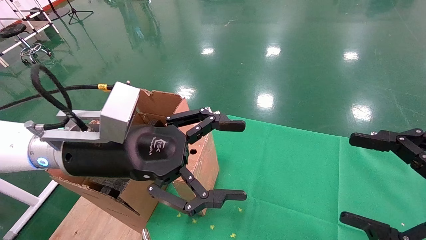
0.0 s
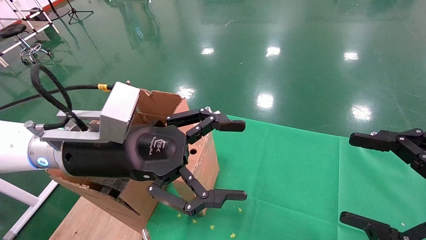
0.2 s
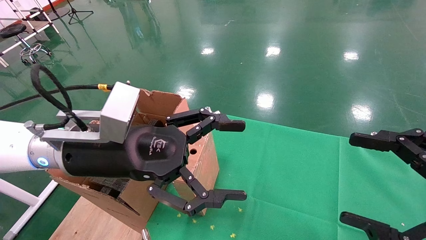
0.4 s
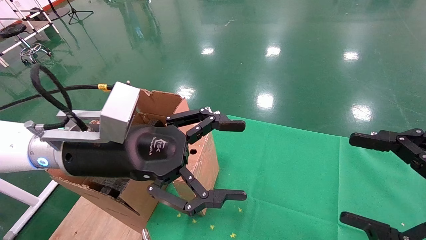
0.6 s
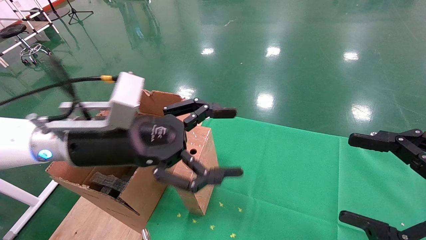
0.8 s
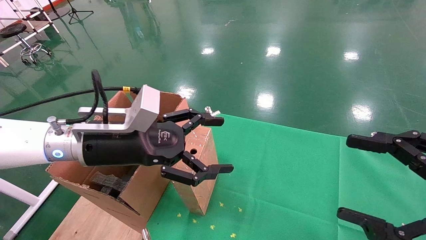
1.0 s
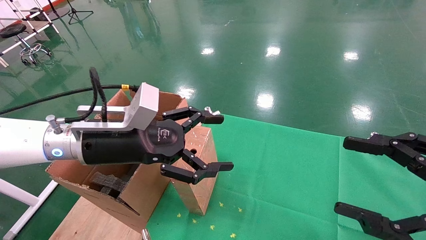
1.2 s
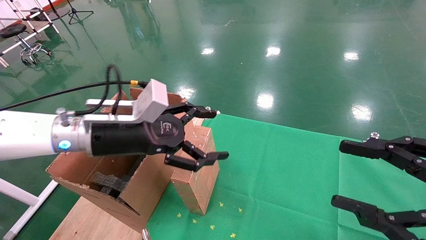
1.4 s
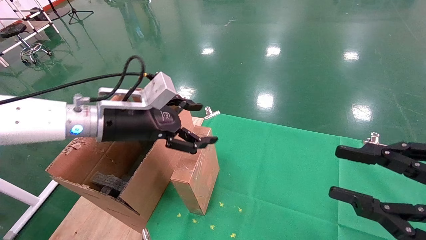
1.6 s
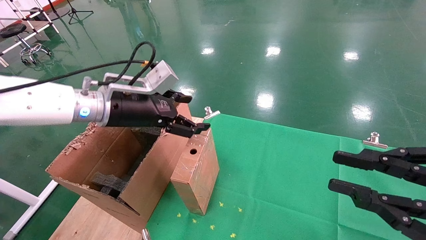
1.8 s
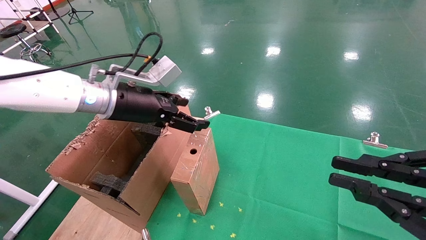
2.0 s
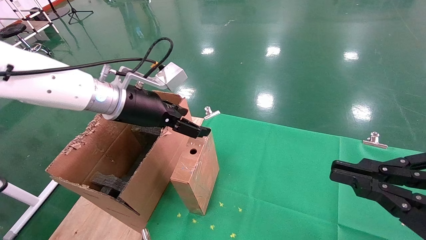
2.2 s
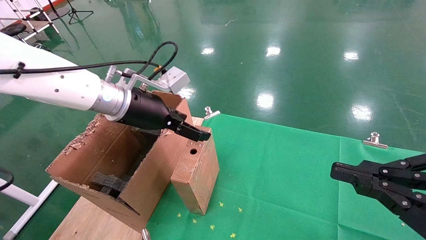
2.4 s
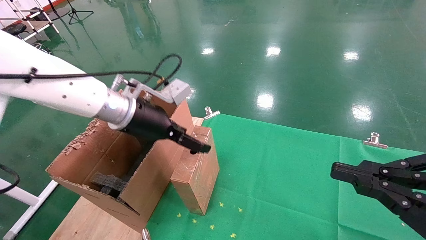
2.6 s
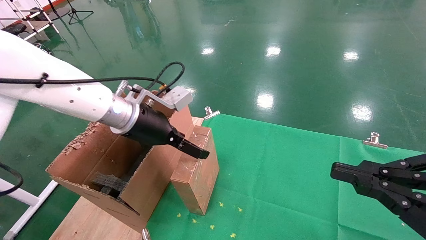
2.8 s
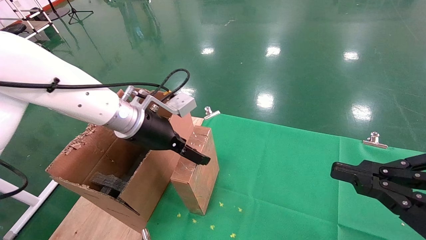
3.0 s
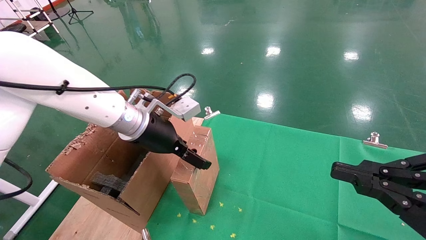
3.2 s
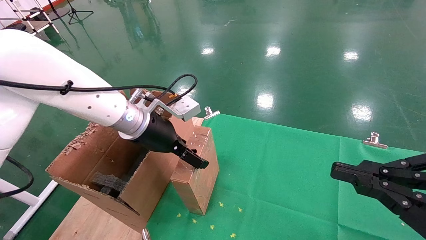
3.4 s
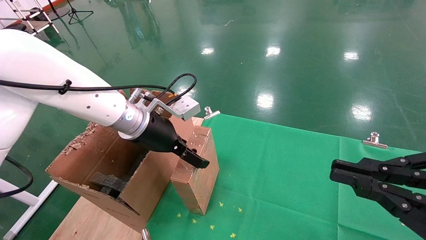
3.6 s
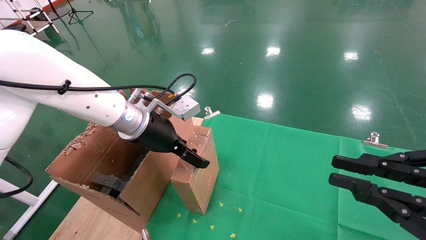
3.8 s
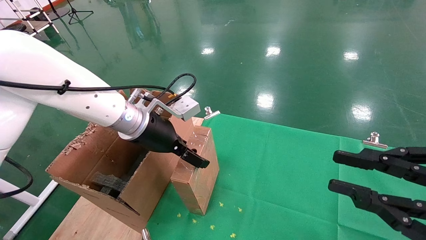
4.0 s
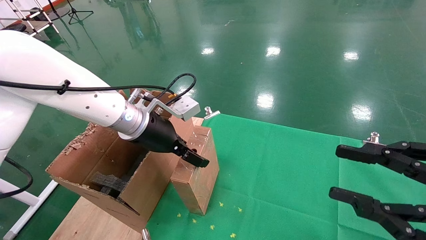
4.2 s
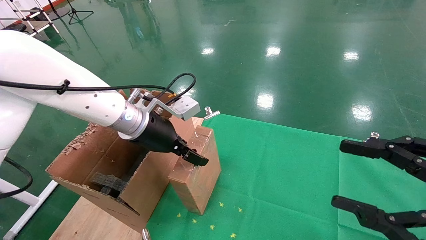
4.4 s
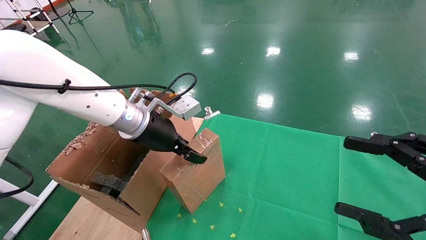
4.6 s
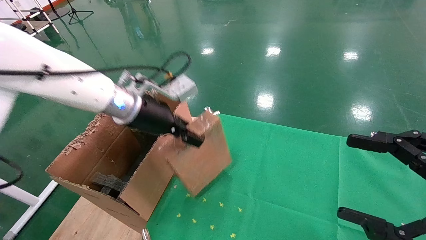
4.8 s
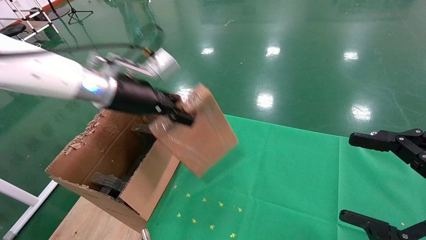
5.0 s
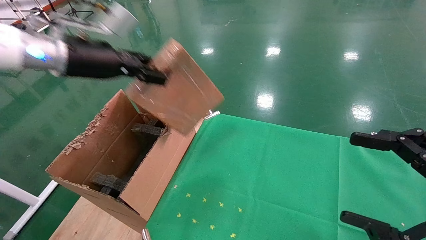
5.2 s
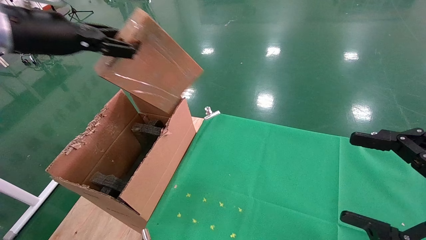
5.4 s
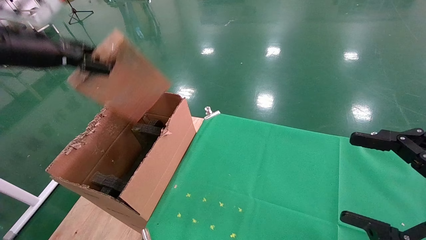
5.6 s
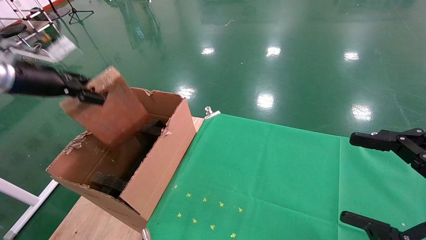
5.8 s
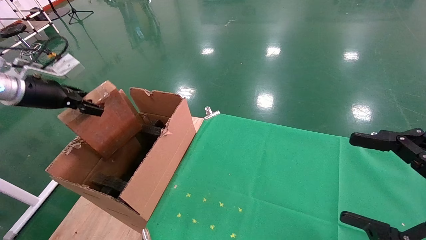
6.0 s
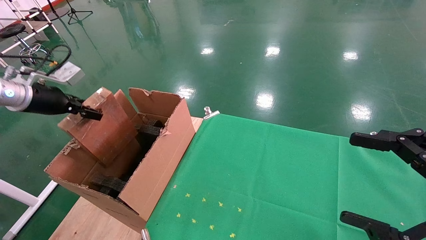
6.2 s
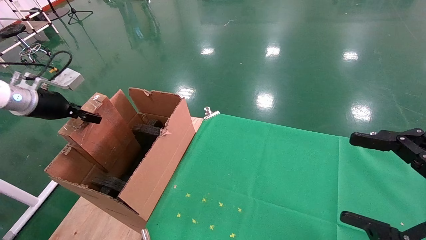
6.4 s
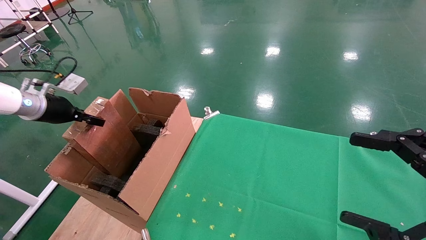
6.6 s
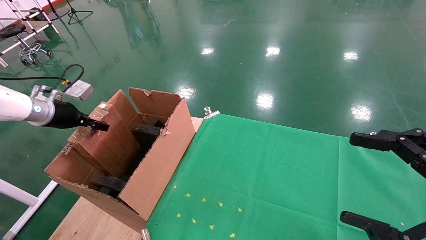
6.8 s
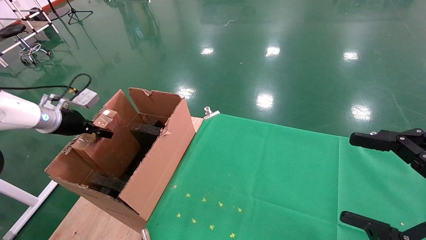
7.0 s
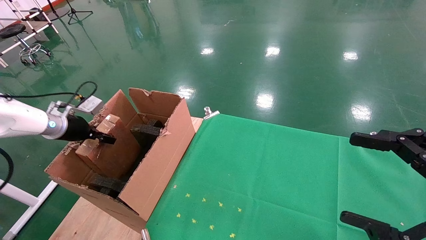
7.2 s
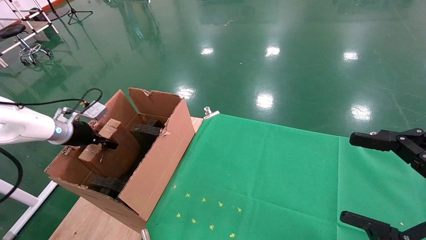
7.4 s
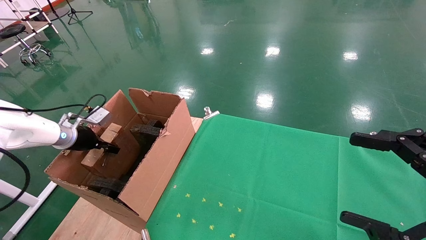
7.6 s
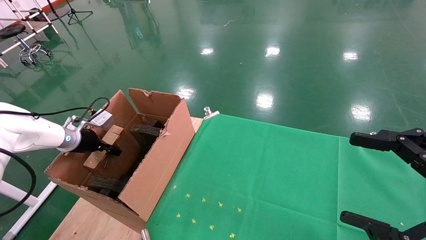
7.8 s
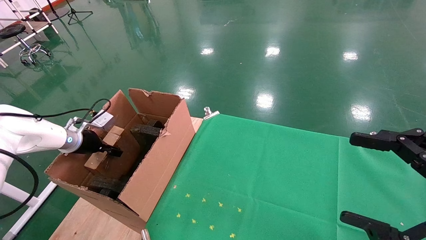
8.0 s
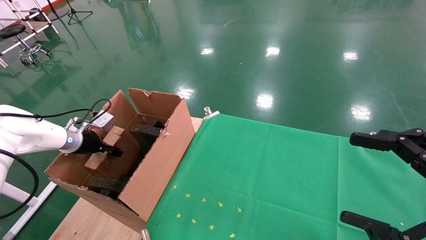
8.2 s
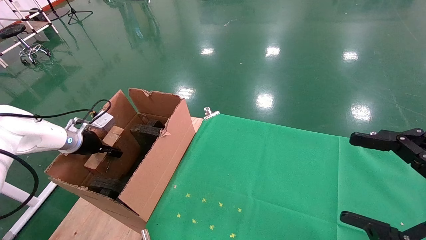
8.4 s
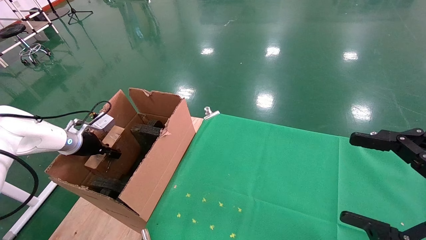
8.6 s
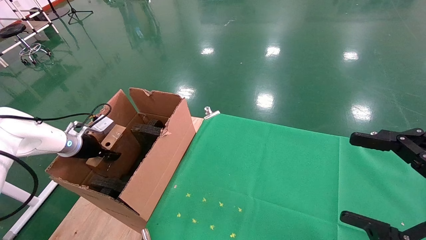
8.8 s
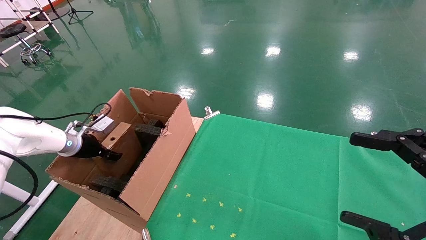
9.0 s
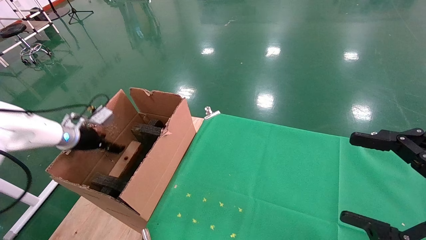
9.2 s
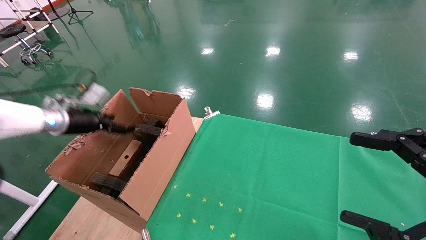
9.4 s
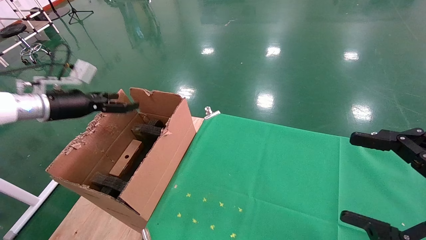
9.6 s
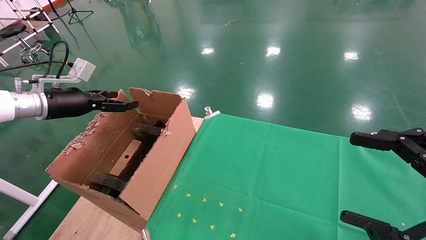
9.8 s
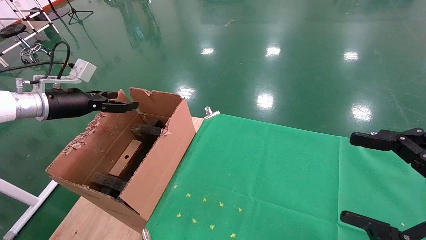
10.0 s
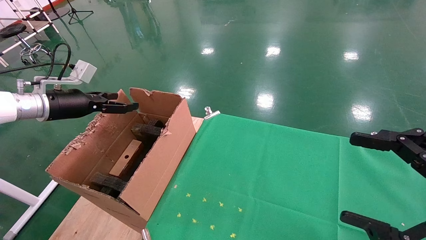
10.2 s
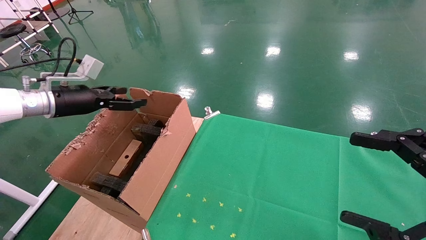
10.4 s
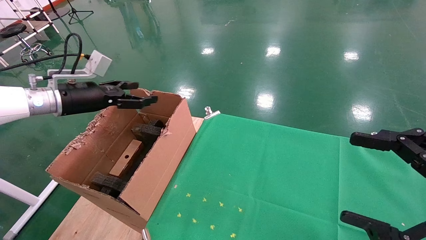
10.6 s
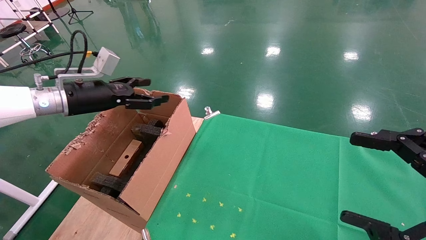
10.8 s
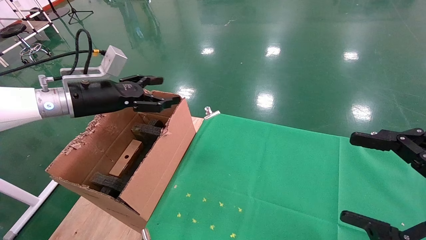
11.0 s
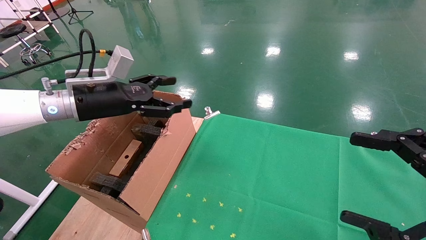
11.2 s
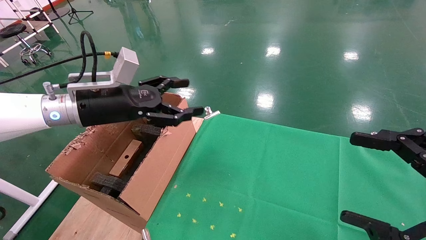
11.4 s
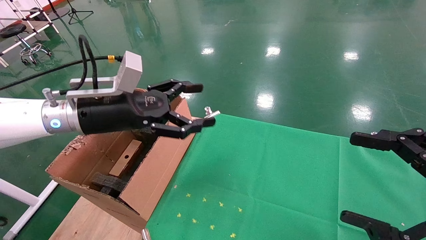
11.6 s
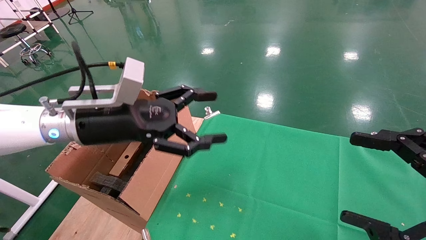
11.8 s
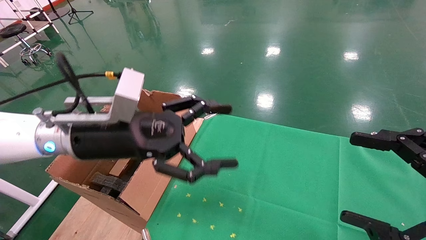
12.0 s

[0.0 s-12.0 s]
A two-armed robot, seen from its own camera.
Task of the whole recording: using a robotic arm to pick up a cardboard box and palace it the carton.
Step, 1.0 to 4.8 s: Pick up the mouse and the power cord paper box.
Step, 5.0 to 9.6 s: Place the mouse and the power cord paper box into the container.
0.0 to 1.6 s: The left gripper goes roughly 10 cm forward. The right gripper closes its fingers.
1.6 to 3.0 s: The left gripper changes place by some 5 cm, while the right gripper closes.
3.0 to 4.4 s: The right gripper opens.
4.4 to 6.0 s: The right gripper opens its fingers, while the left gripper moves to the left, about 30 cm, and closes its fingers.
6.0 to 7.6 s: The left gripper shifts roughly 15 cm downward and forward.
7.6 to 9.0 s: The left gripper opens its fingers.
9.0 to 10.4 s: The left gripper shifts roughly 15 cm upward, and opens its fingers.
10.4 to 12.0 s: The left gripper moves to the right and backward, some 25 cm.

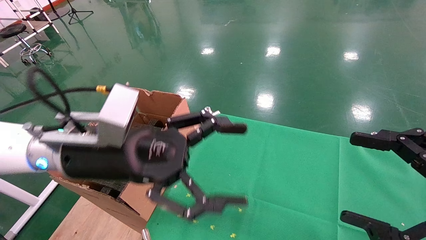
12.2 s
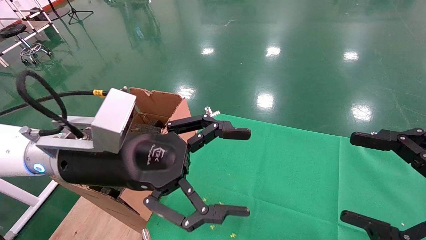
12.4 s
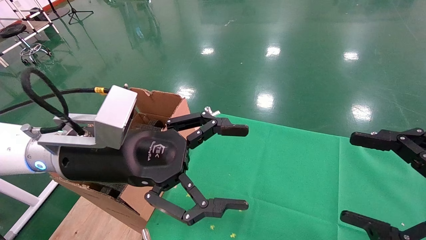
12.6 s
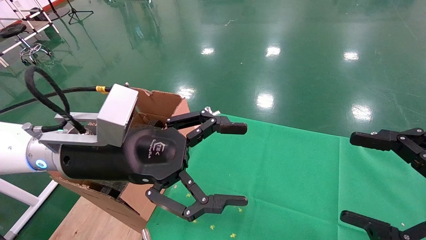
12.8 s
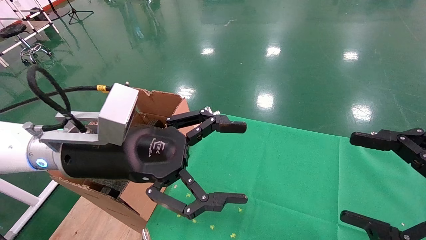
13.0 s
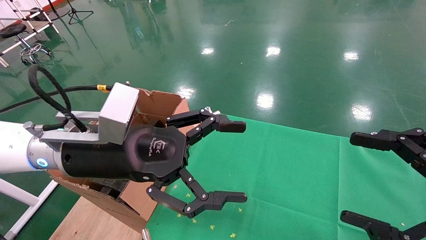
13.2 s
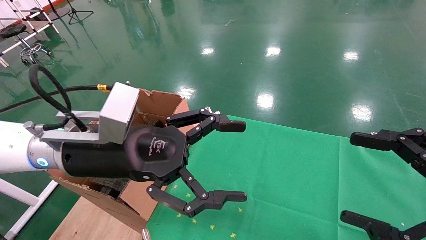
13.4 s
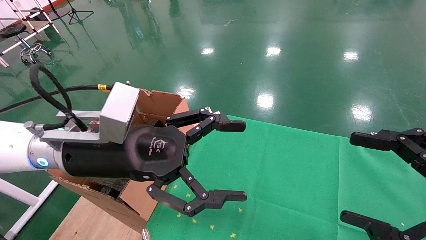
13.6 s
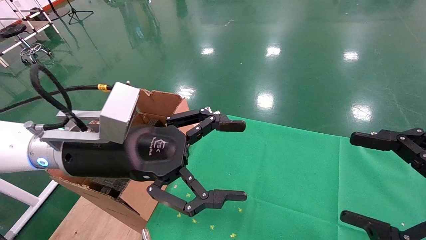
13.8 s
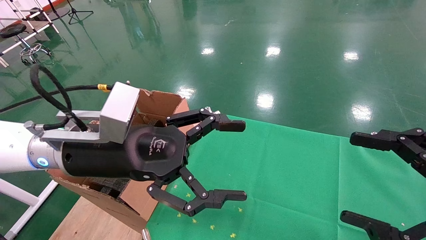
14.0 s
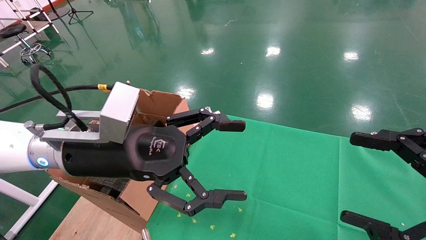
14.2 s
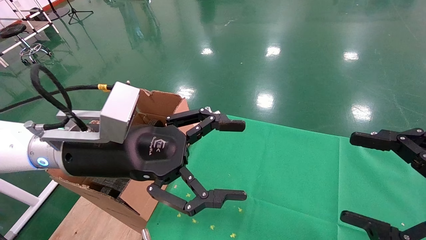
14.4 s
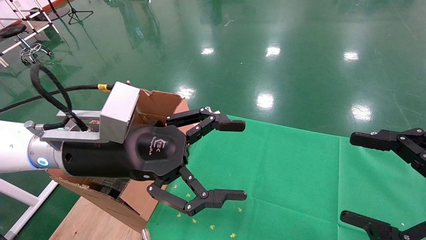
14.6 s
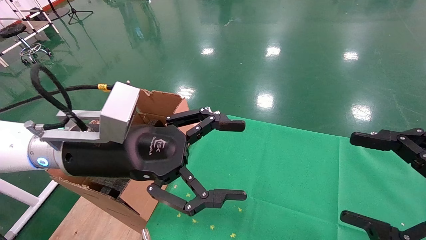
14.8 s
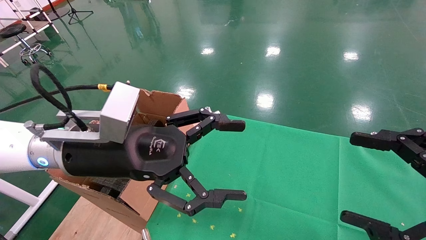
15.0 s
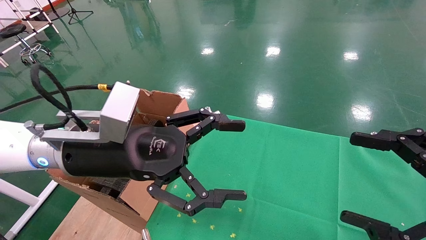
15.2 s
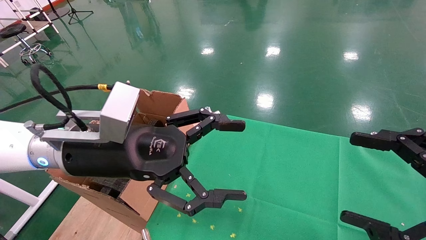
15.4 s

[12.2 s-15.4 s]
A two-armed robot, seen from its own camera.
Task of the whole recording: using a robotic arm to pick up a cardboard box and palace it the carton.
12.2 to 15.4 s: The two grippers keep their place.
